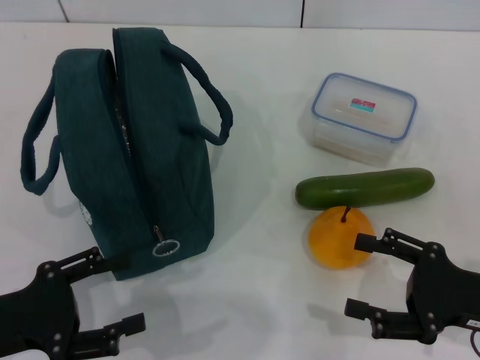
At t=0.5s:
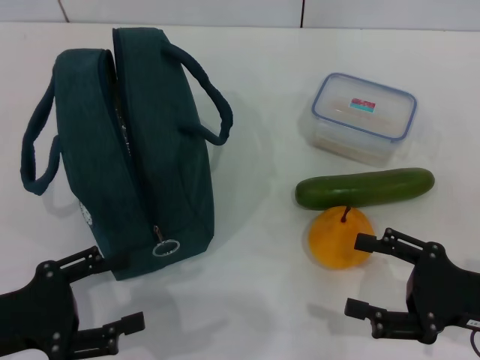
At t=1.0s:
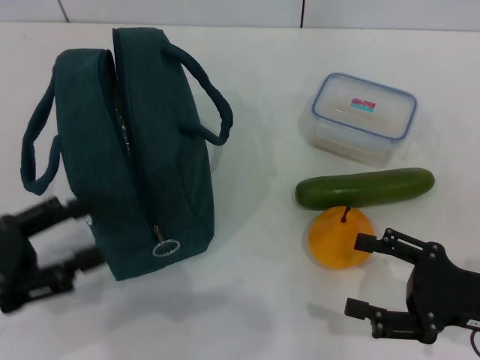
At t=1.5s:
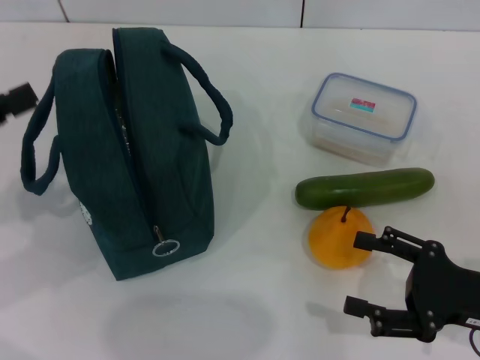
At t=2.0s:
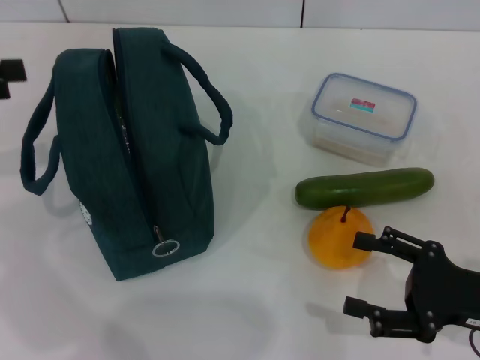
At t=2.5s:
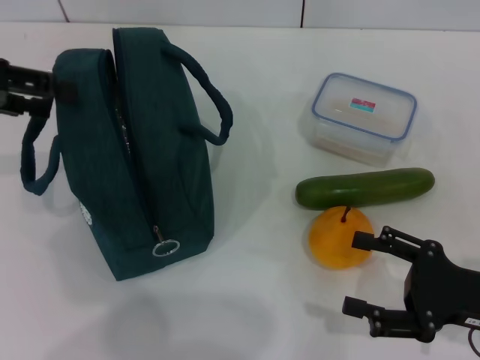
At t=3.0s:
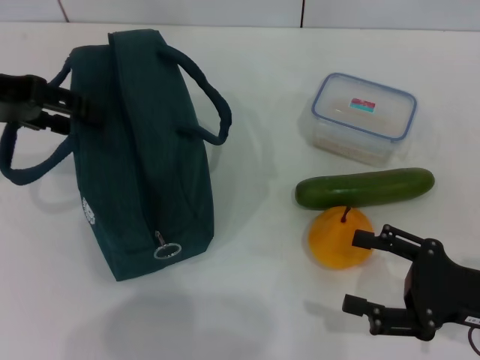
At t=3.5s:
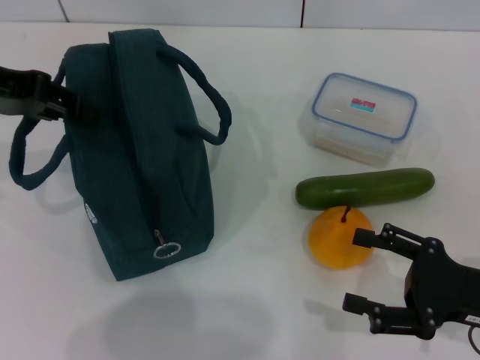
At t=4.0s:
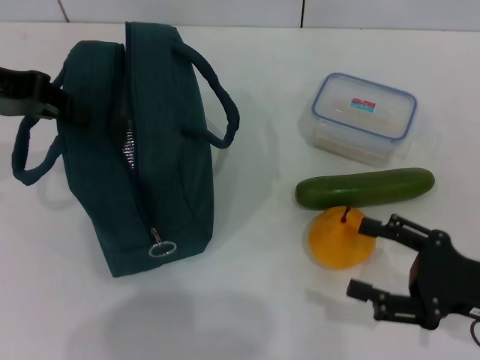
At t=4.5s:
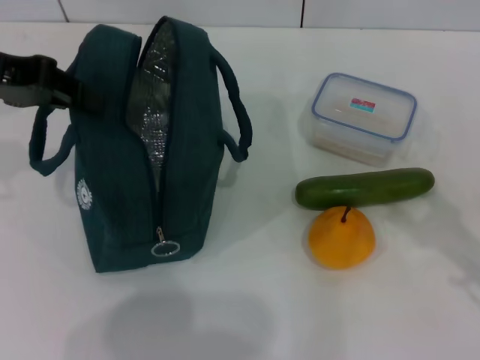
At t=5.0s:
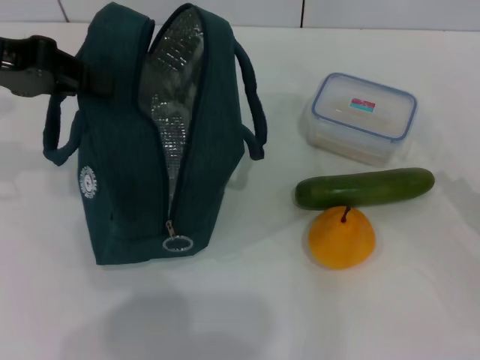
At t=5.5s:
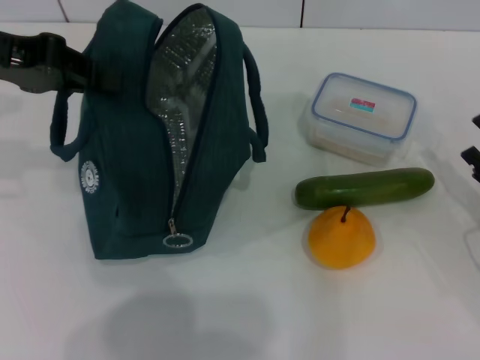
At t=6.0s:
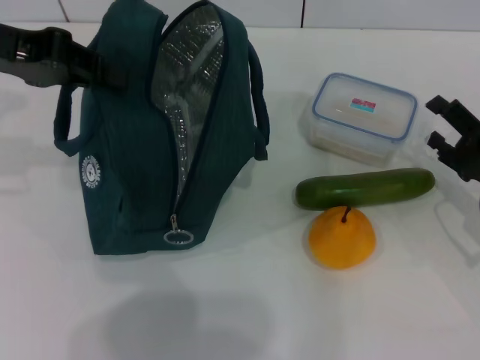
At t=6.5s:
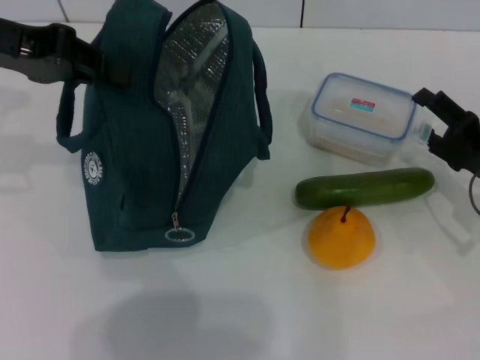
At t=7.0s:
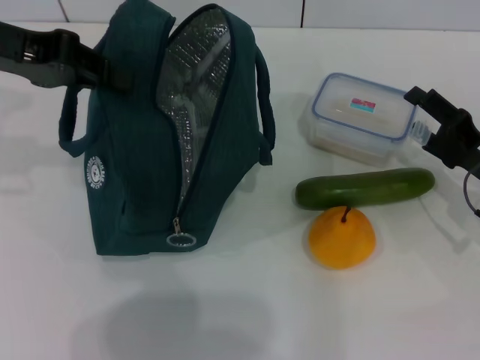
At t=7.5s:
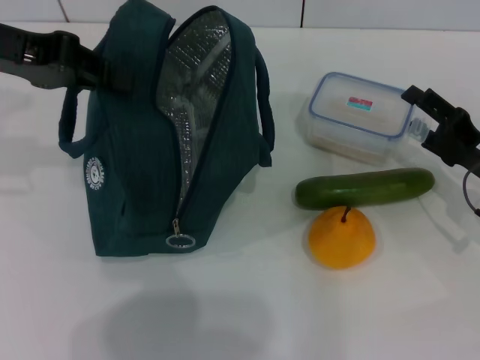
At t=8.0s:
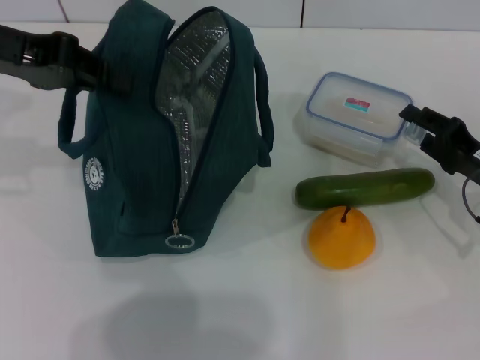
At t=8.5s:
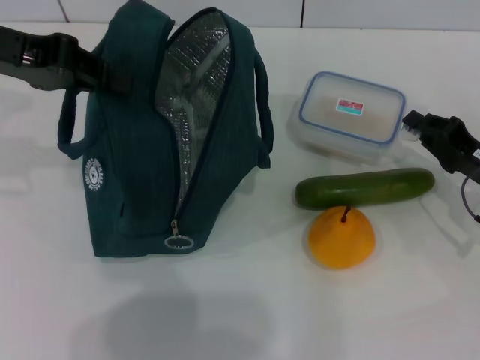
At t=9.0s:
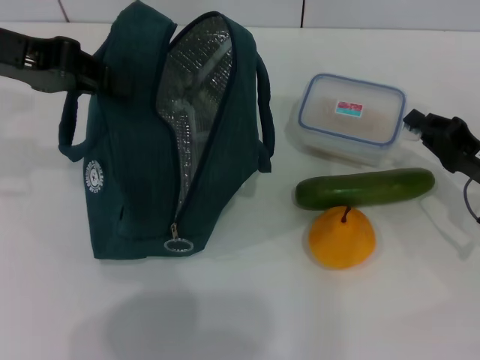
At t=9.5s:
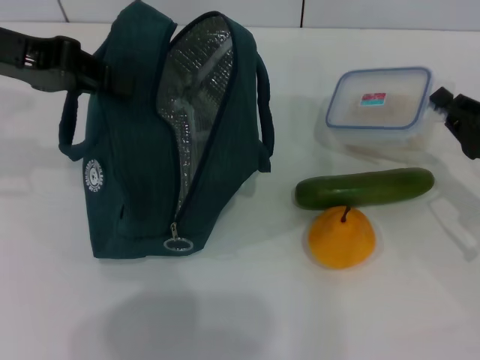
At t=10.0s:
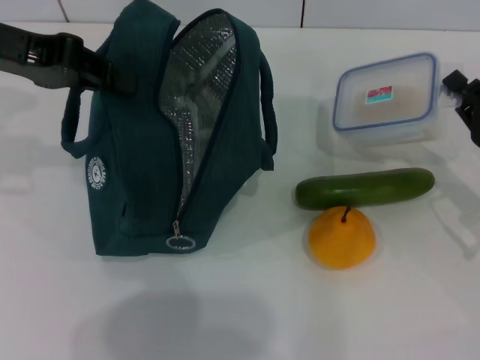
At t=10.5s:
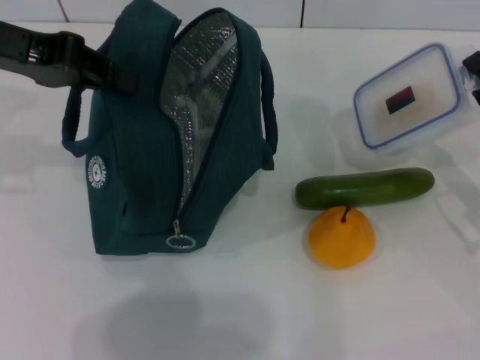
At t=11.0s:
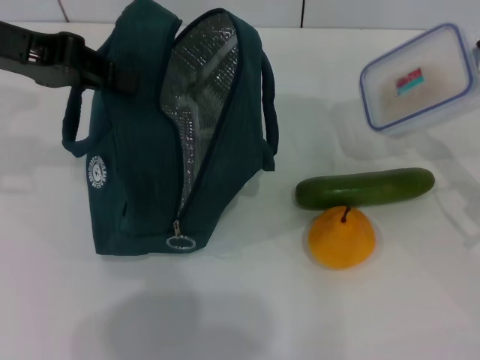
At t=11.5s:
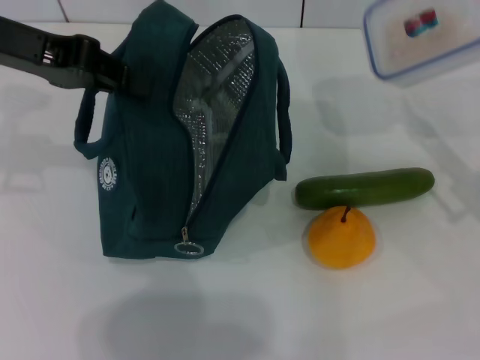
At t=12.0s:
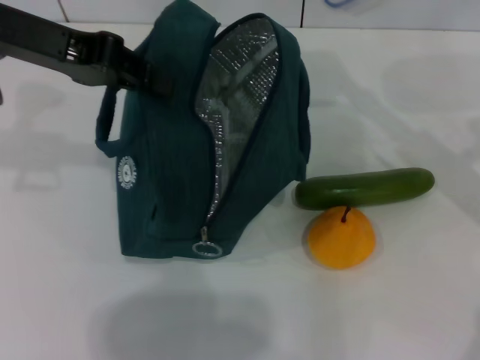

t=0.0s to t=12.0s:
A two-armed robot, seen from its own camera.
Step, t=0.0s to t=4.0s: Hold the lunch bag with your left hand.
Step, t=4.5s to t=8.5s: Pick up the lunch box with your right hand.
t=0.0s to t=2.0s: The left gripper travels upward, forward and to the left by roughly 20 cm.
t=2.0s to t=4.0s: The left gripper moves to the right and forward, about 10 cm, and closes.
t=4.0s to t=6.0s: The right gripper shifts roughly 10 cm forward.
t=6.0s to t=8.0s: There are only small adjustments of the grippers.
t=8.0s to t=10.0s: The right gripper closes its fingers.
t=10.0s to t=12.0s: The right gripper moves upward and forward, some 10 cm.

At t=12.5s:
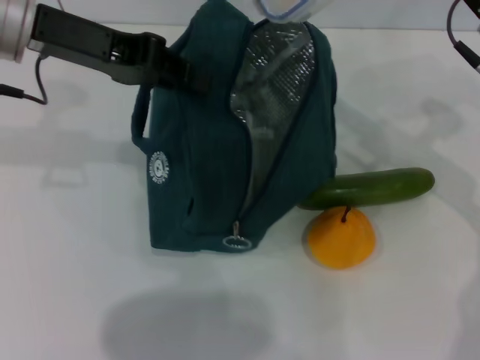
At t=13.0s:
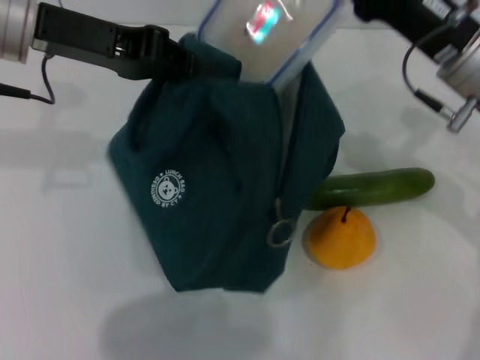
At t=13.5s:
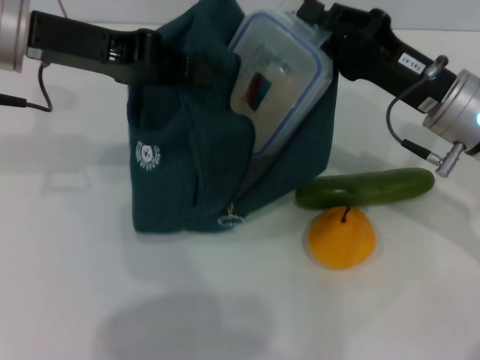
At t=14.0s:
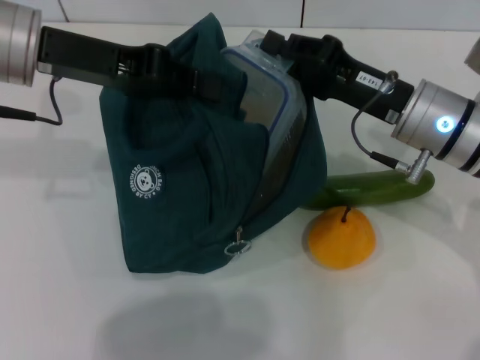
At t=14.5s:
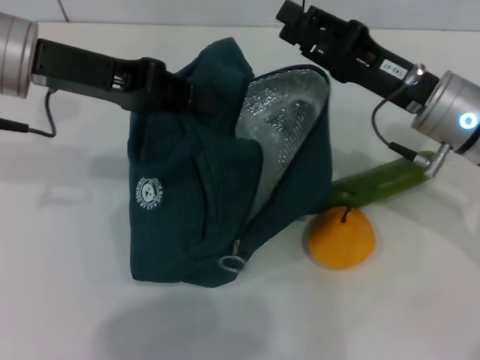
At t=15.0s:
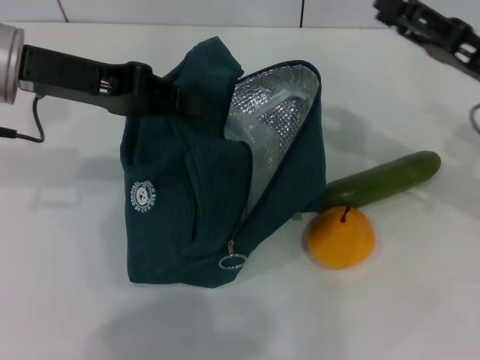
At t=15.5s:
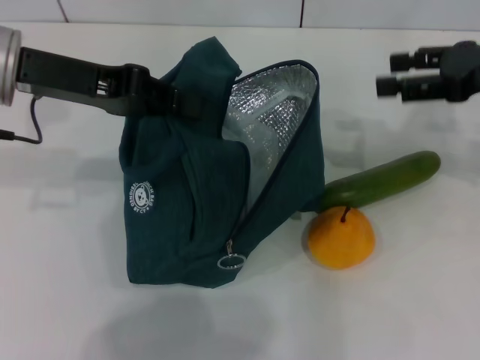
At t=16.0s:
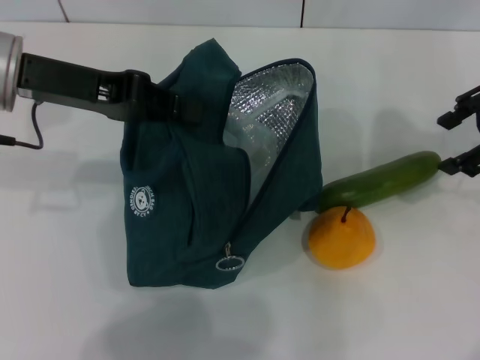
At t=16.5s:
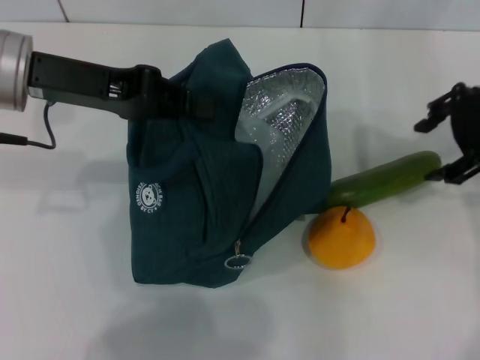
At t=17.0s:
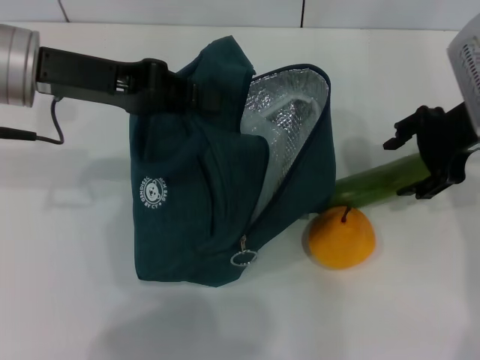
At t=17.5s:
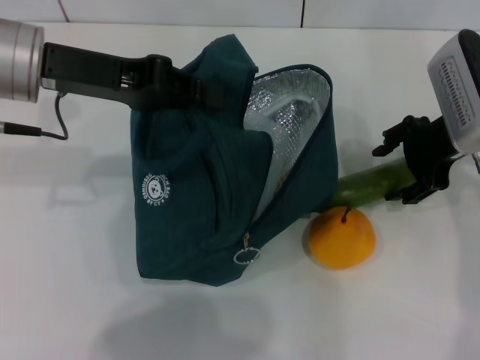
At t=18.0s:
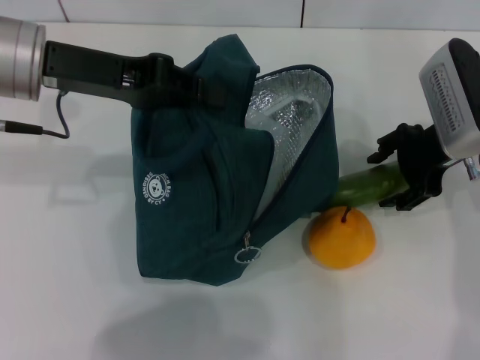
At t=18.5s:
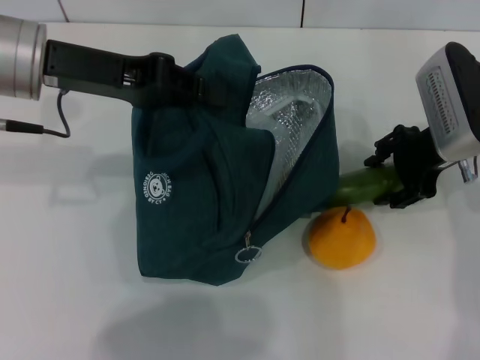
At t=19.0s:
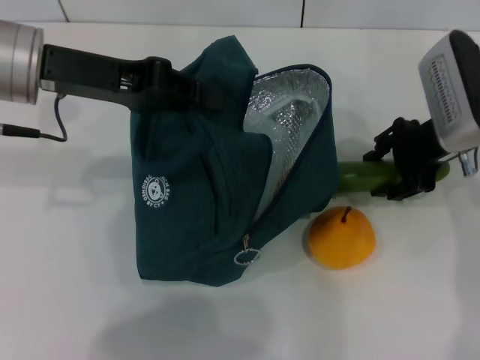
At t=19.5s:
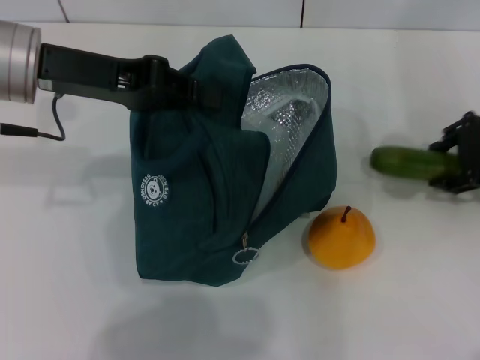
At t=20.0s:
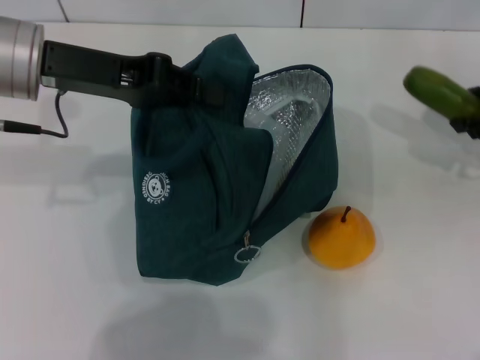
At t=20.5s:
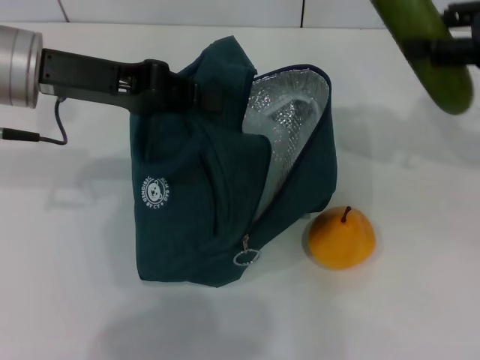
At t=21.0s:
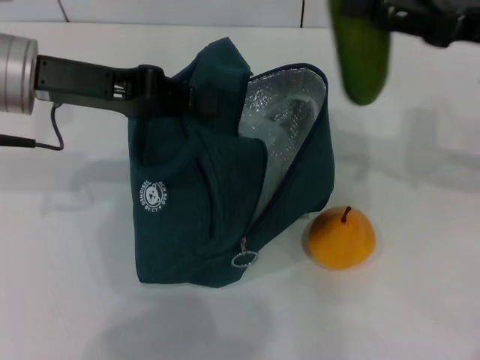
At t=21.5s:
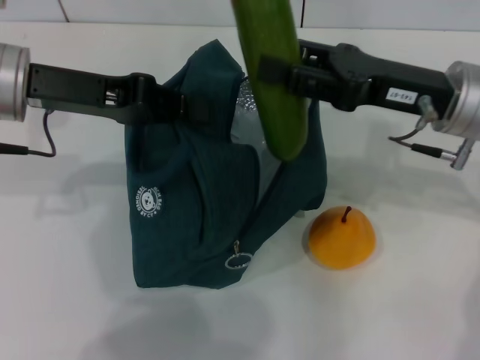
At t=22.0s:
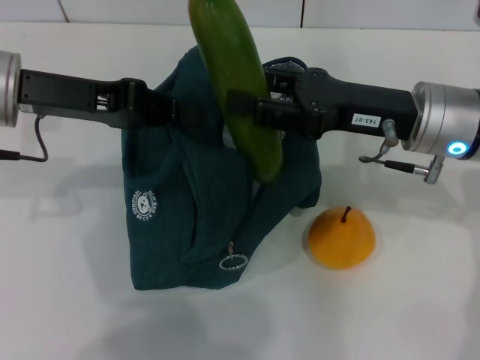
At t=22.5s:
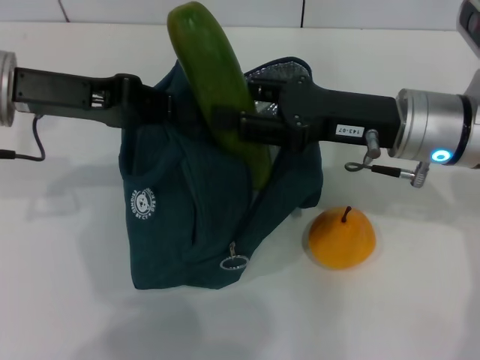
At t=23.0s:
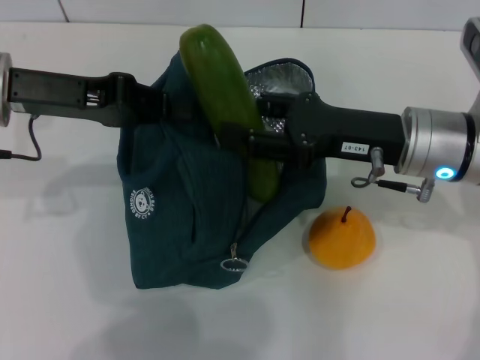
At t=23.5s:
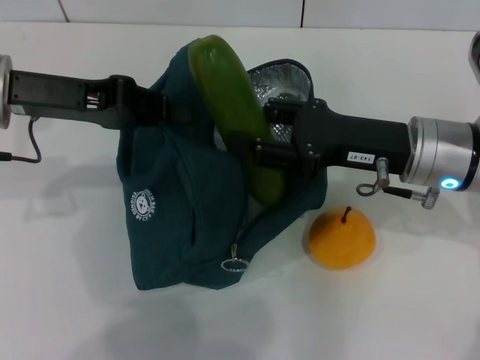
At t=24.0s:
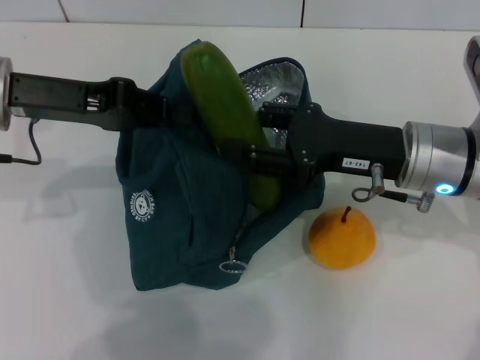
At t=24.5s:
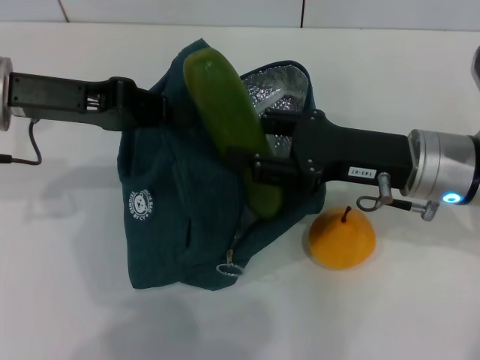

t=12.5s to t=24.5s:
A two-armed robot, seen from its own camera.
Step, t=12.5s to t=14.5s: Place the lunch box into the lunch bag with your right hand.
Step, t=15.0s to t=18.5s: Pick up the cucumber with your right hand.
t=12.5s to t=14.5s: The right gripper shifts approximately 5 cm downward.
t=14.5s to t=16.5s: The right gripper heads upward and to the right, covering some 10 cm, and opens its fingers.
t=16.5s to t=18.5s: The right gripper travels downward by approximately 10 cm.
t=18.5s to t=20.5s: The right gripper shifts about 15 cm upward and to the right.
t=20.5s to t=22.5s: The right gripper shifts roughly 15 cm to the left and downward.
t=22.5s to t=24.5s: The grippers make only small movements.

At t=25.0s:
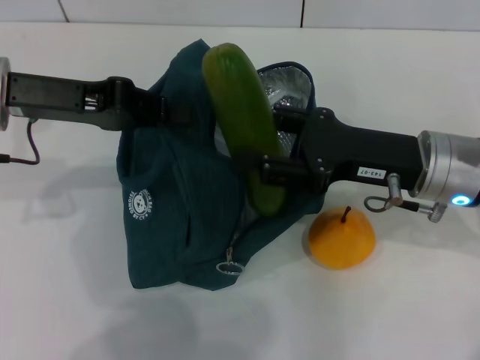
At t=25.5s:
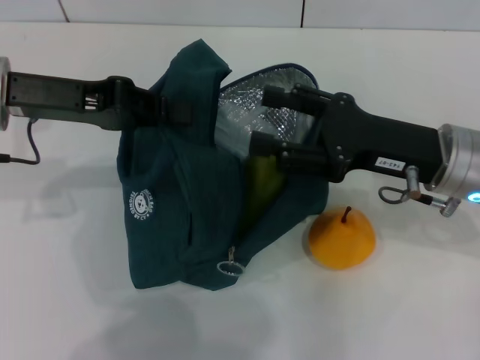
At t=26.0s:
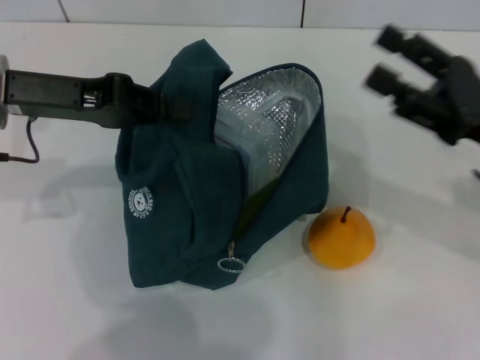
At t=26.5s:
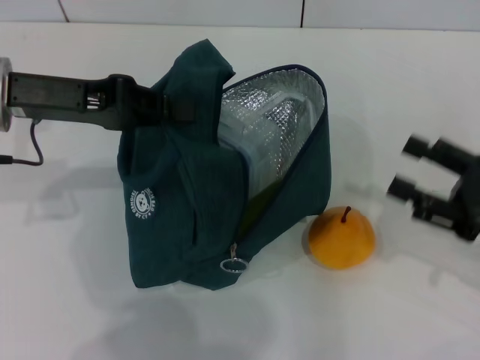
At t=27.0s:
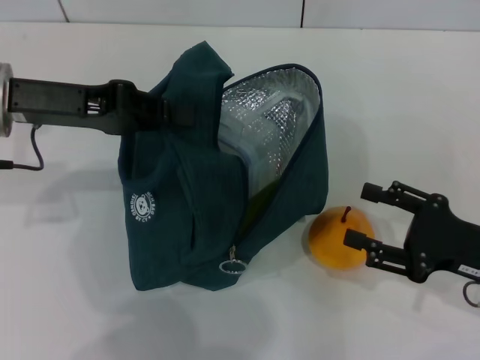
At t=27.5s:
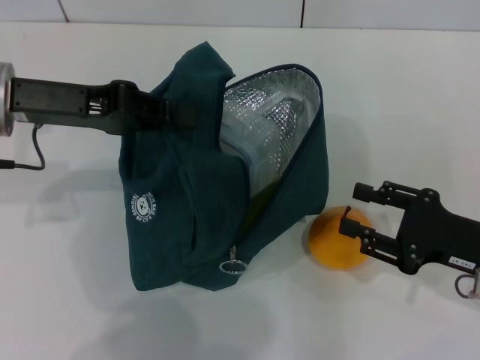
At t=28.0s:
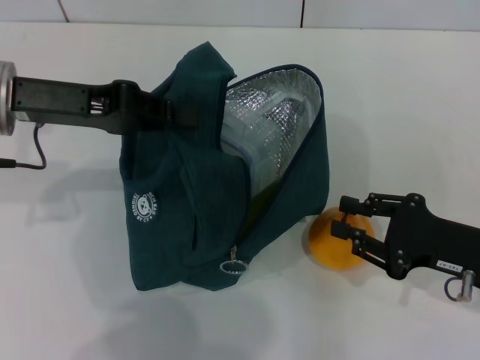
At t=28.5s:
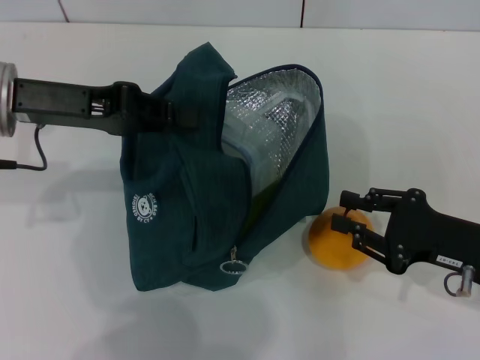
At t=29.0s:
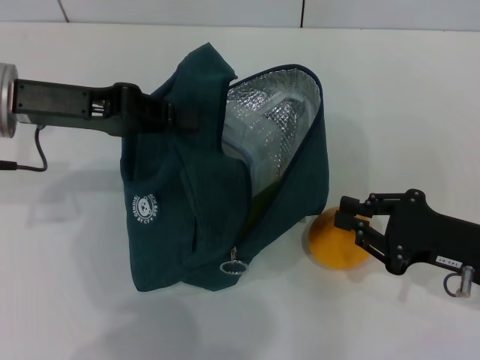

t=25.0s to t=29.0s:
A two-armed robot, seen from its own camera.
t=25.0s to t=27.0s: The right gripper shifts roughly 15 cm to the right, backward and downward.
t=27.0s to t=29.0s: The right gripper closes up.
